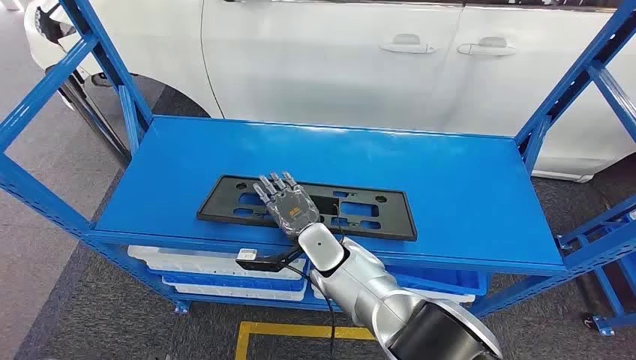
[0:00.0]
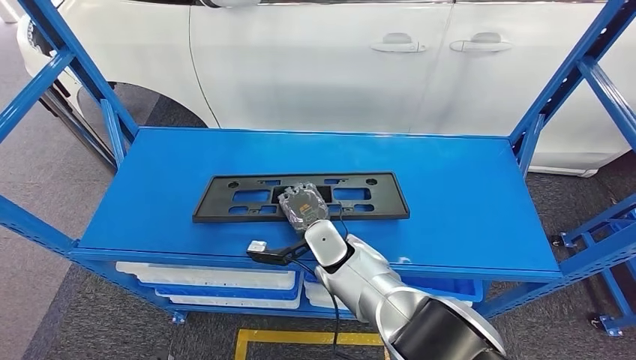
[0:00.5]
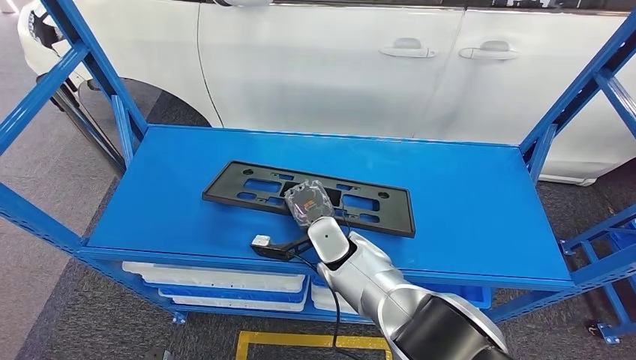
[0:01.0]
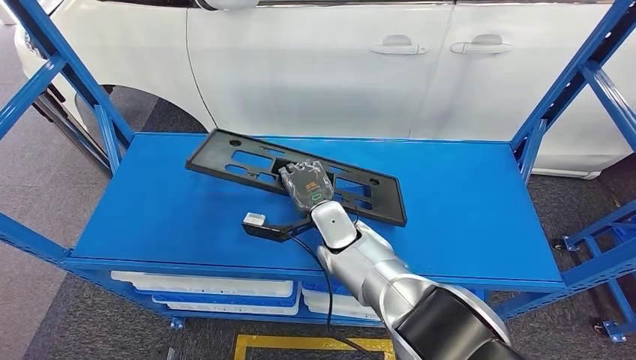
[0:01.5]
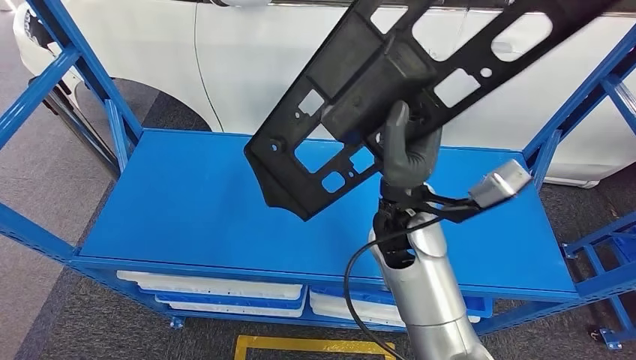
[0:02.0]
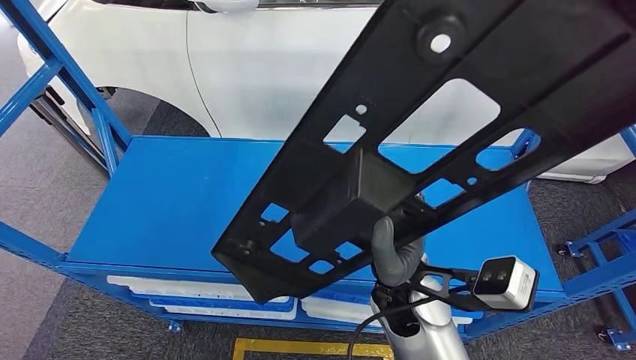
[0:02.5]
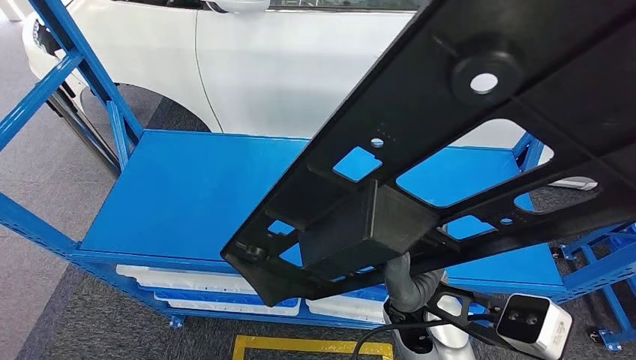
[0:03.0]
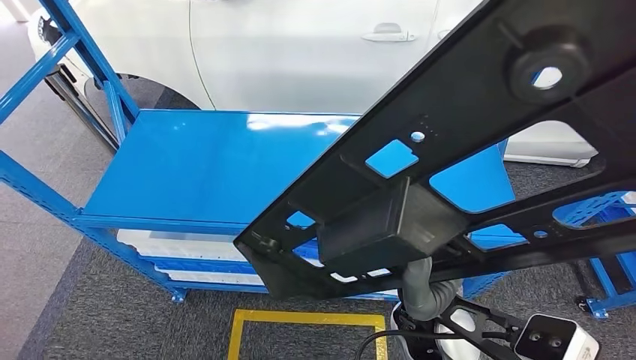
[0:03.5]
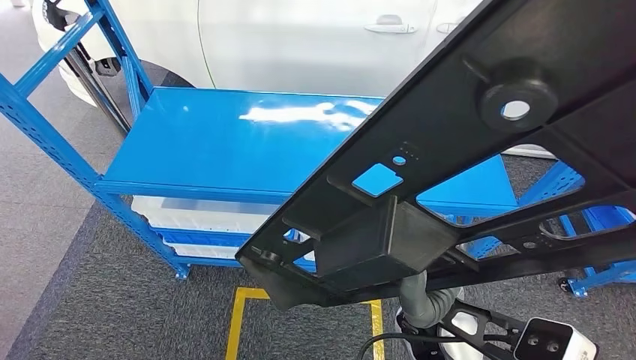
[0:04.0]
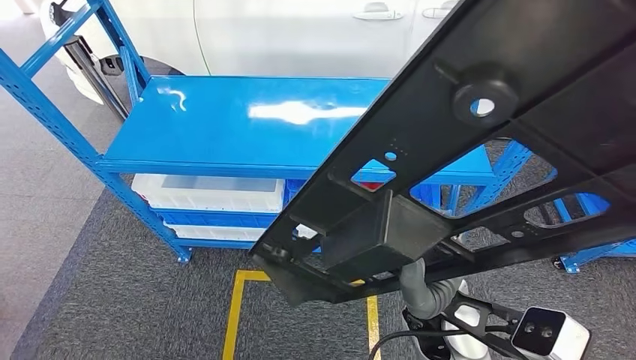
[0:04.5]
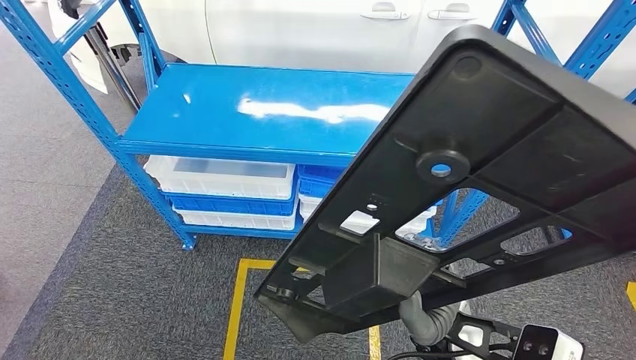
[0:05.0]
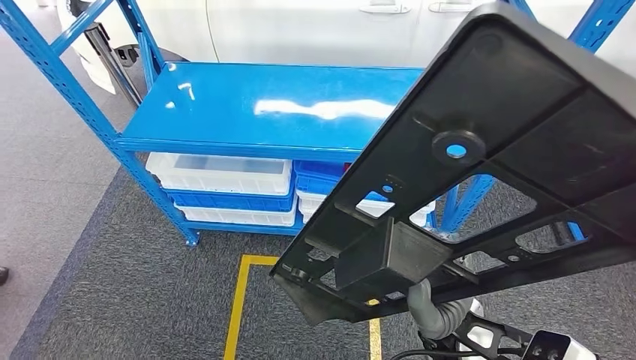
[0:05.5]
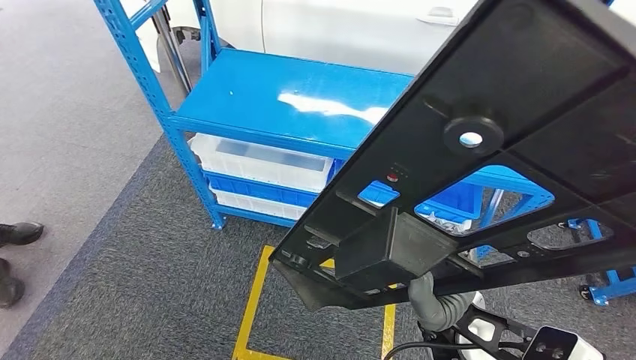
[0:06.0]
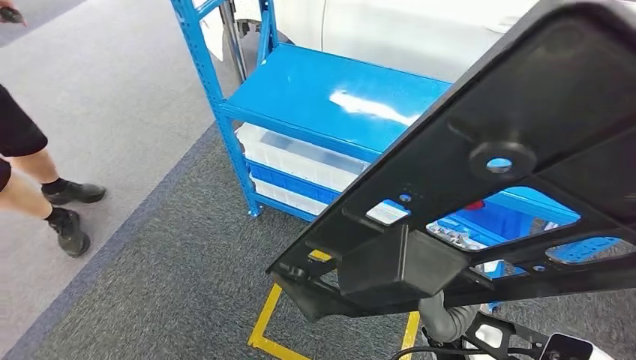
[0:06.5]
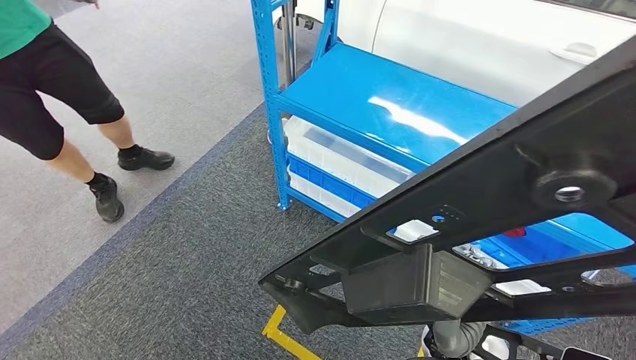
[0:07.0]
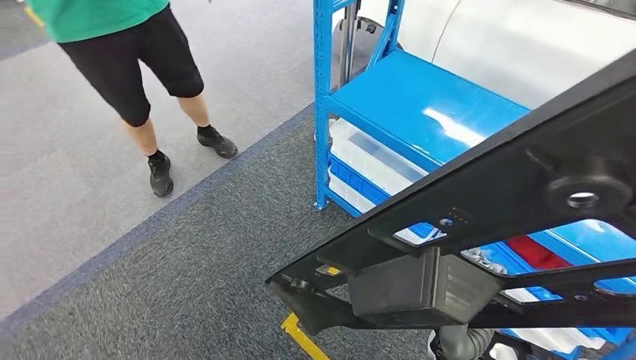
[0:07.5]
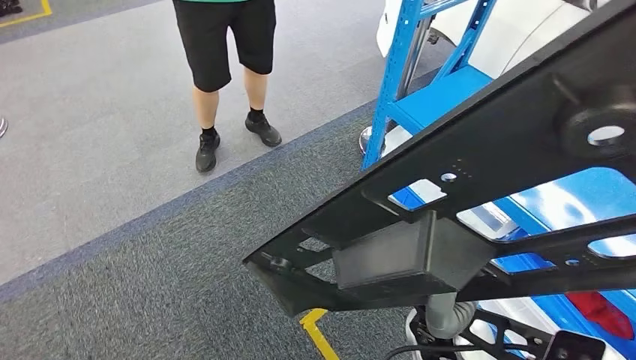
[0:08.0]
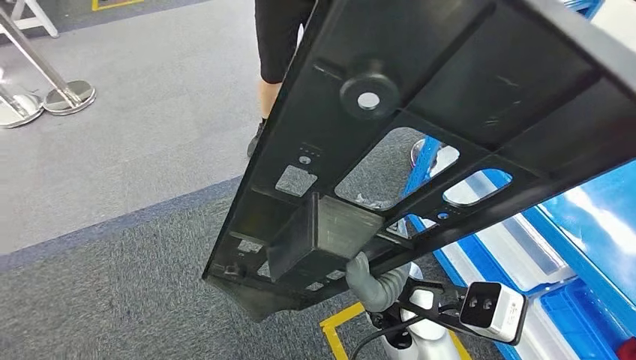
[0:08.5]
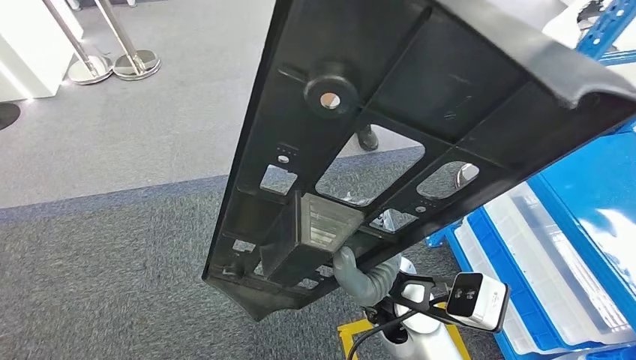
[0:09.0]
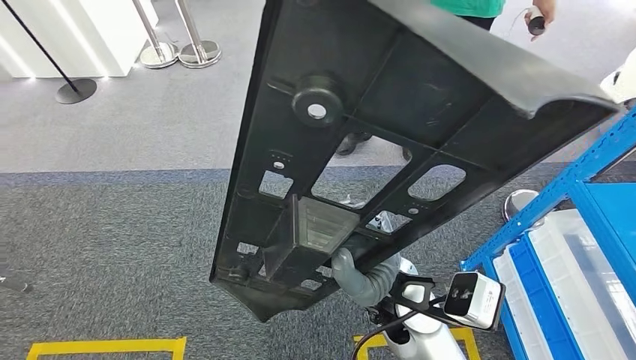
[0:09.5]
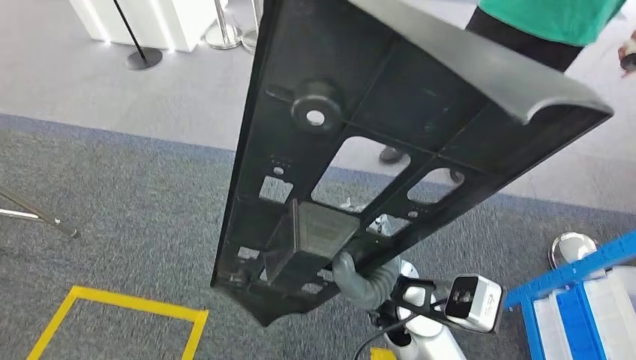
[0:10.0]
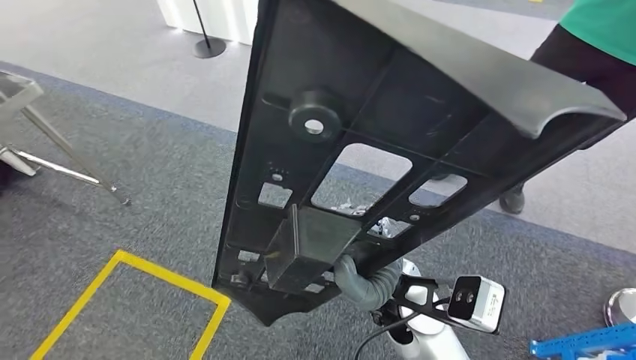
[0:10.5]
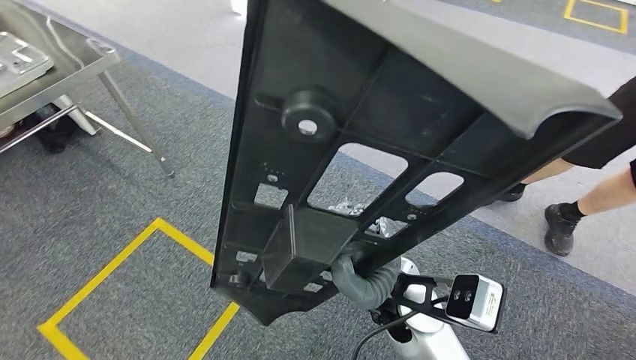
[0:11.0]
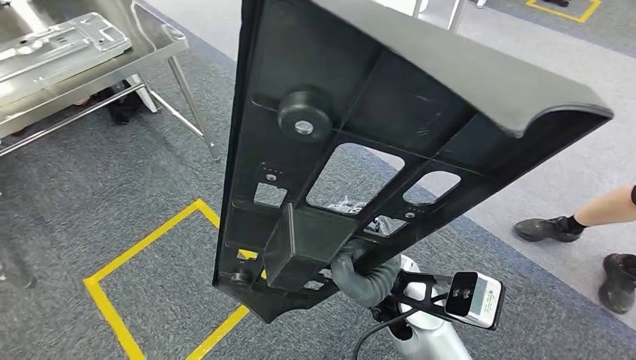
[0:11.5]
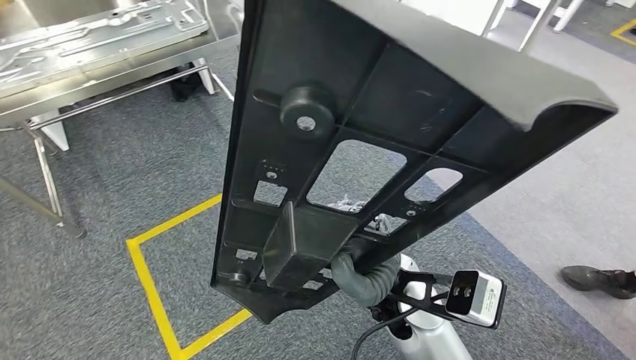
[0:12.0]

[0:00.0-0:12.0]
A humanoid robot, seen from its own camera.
Step, 0:00.0 to 0:03.0: Pick up the large material from the shelf.

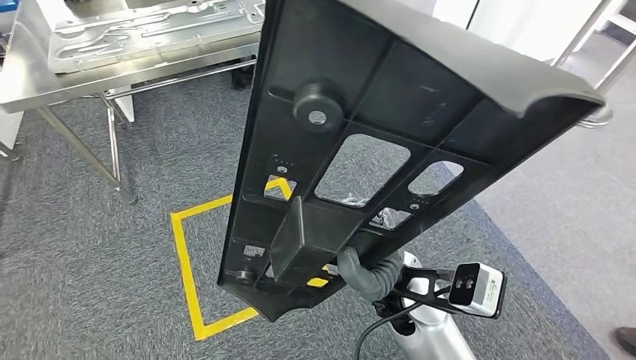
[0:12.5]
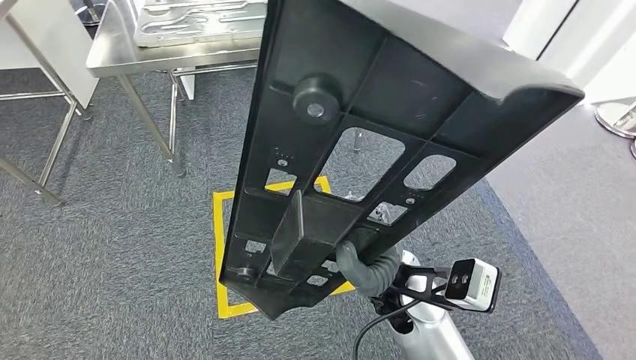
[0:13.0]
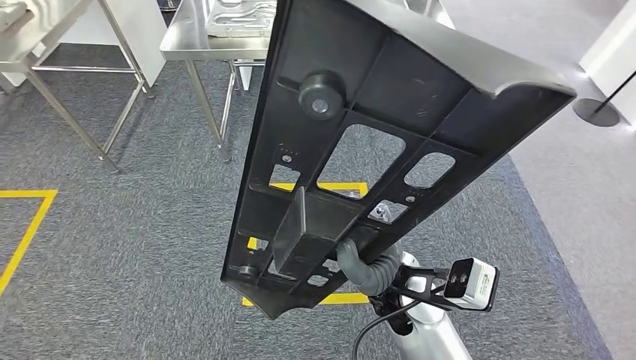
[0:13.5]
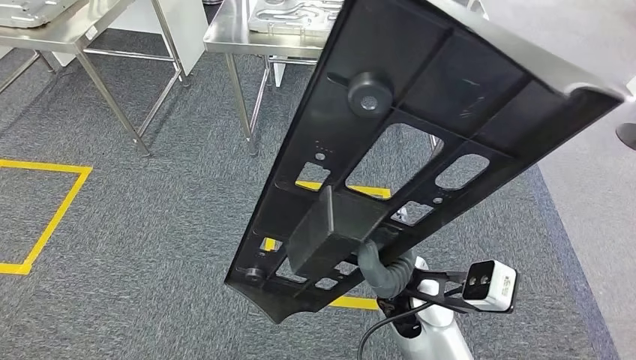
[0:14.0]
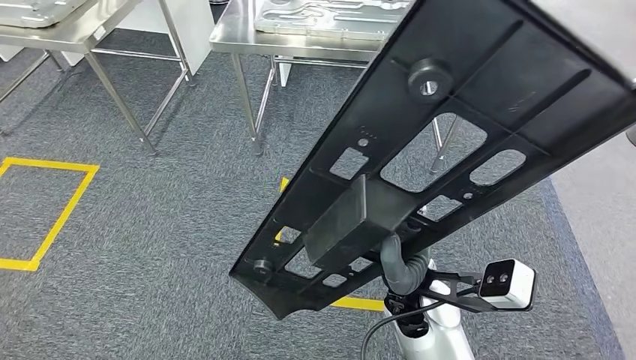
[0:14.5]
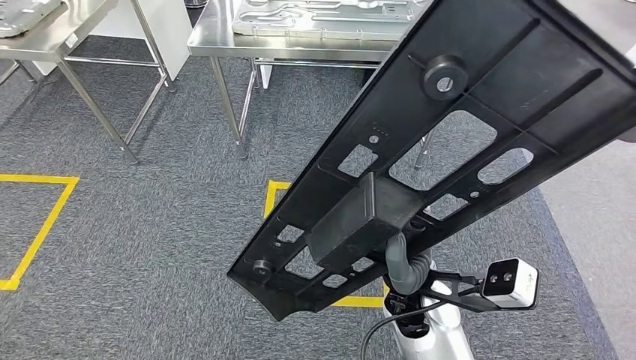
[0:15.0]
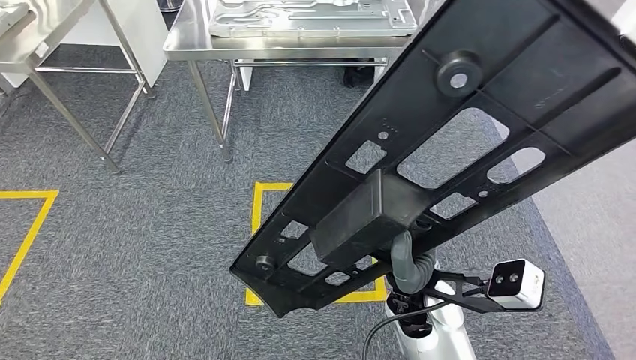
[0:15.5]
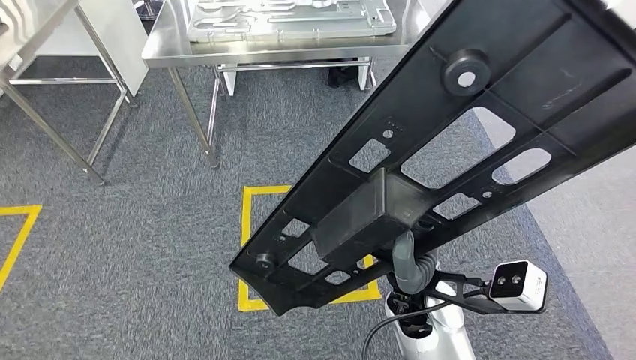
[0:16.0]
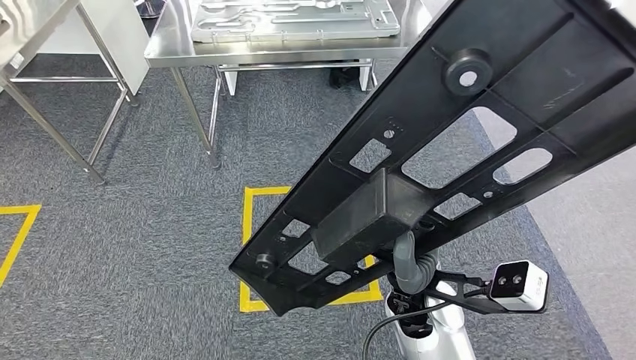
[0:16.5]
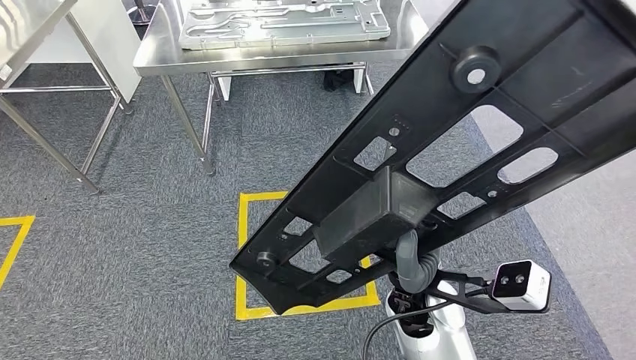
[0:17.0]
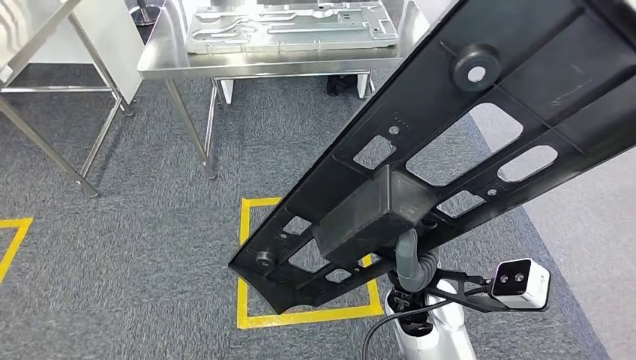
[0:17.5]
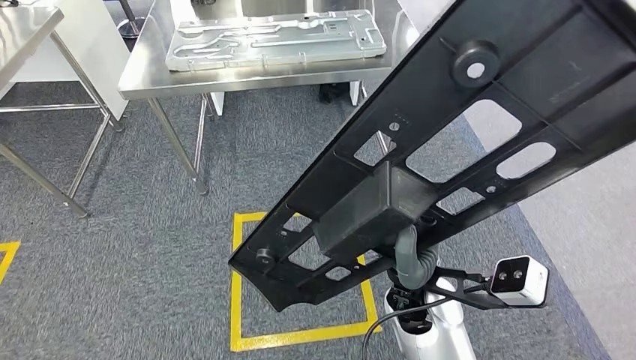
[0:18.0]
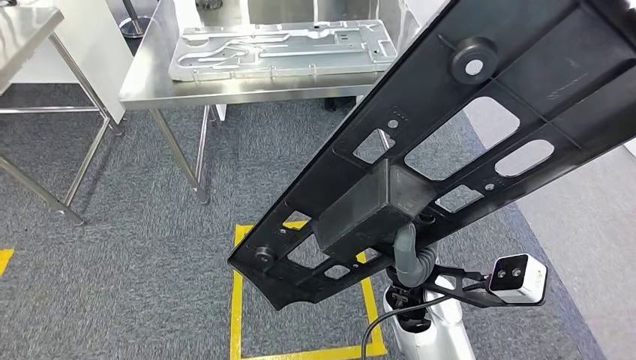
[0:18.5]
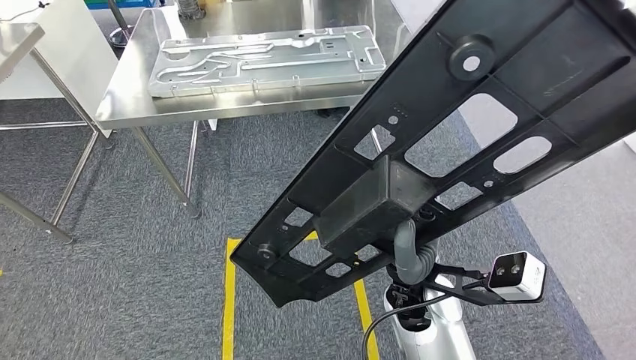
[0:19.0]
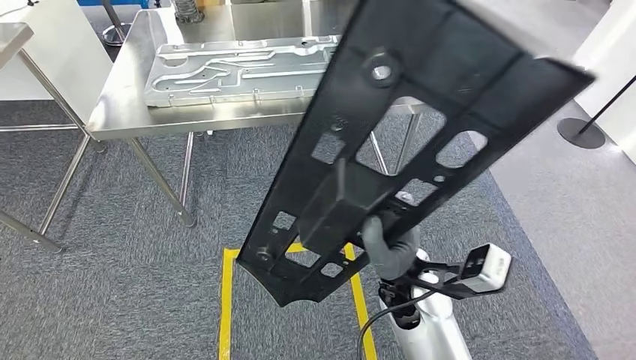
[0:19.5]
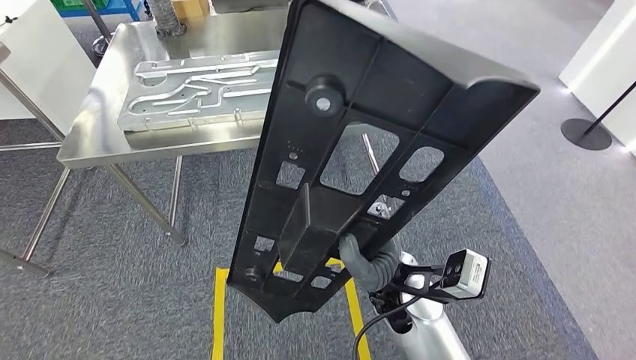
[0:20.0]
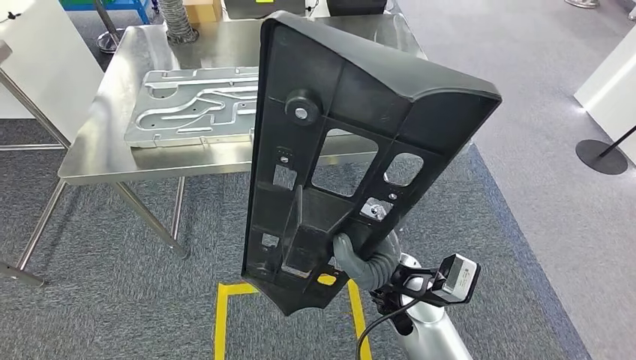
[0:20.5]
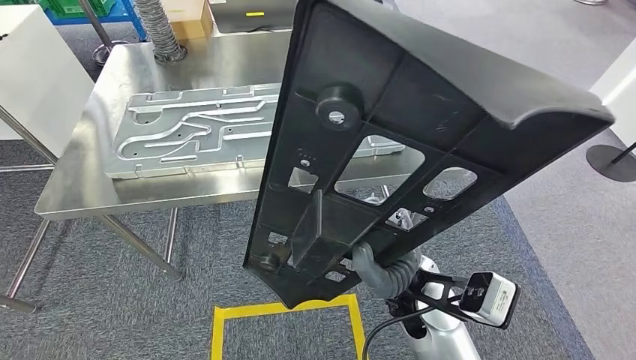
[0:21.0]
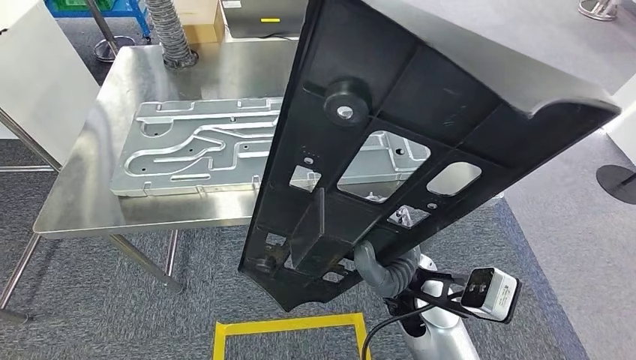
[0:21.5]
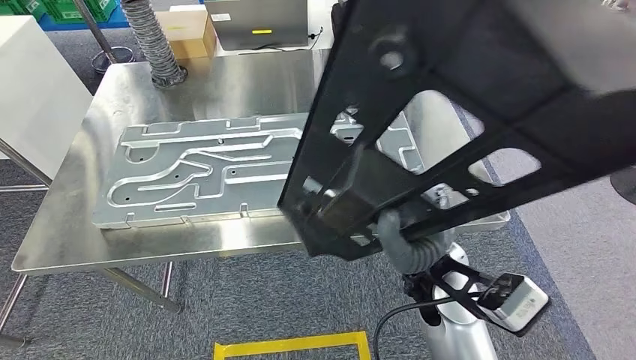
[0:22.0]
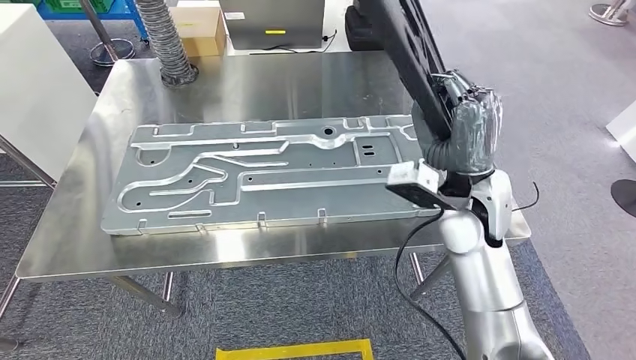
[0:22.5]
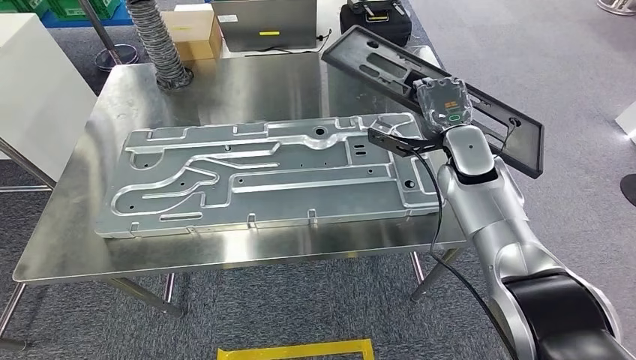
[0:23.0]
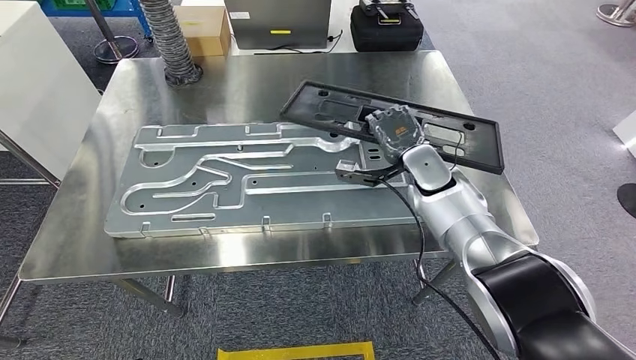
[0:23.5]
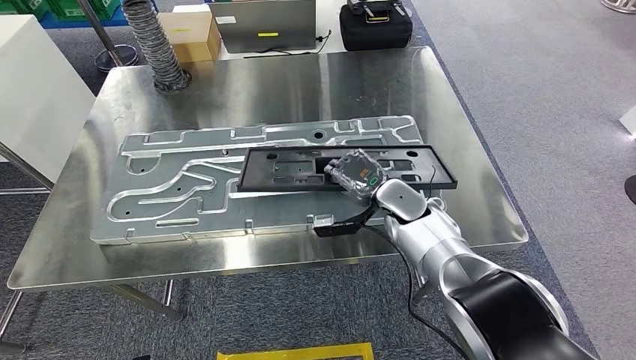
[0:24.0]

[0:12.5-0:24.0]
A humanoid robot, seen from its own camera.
Step, 0:12.5 to 0:22.5: Move the large material to the front of the workbench.
